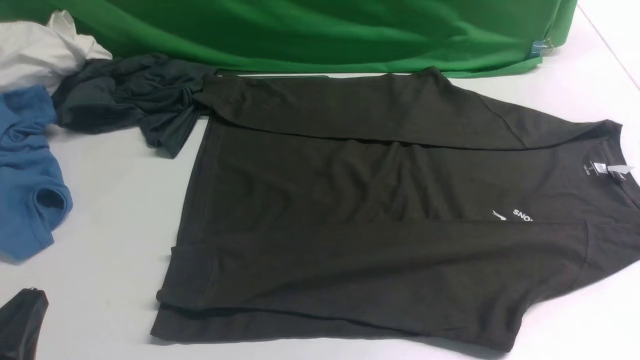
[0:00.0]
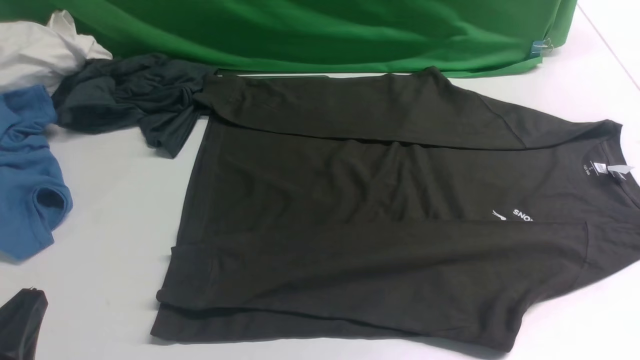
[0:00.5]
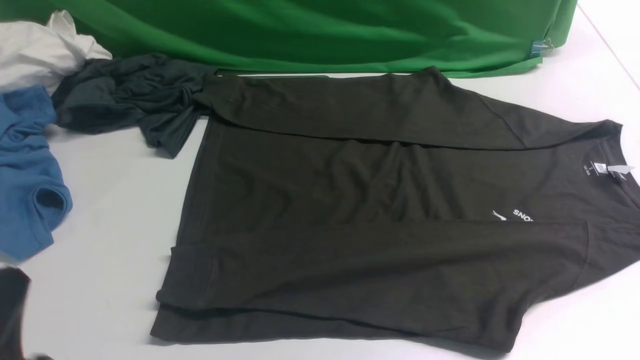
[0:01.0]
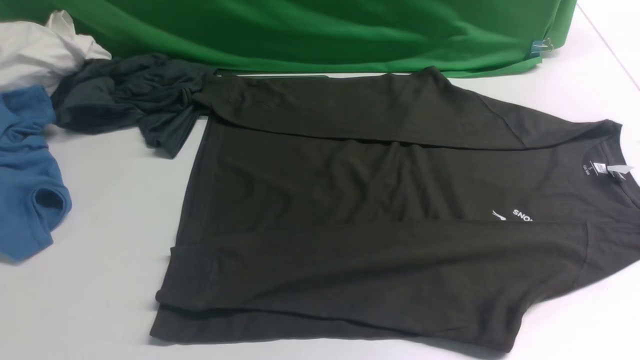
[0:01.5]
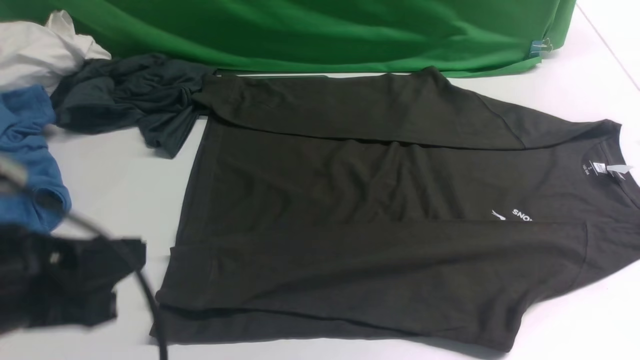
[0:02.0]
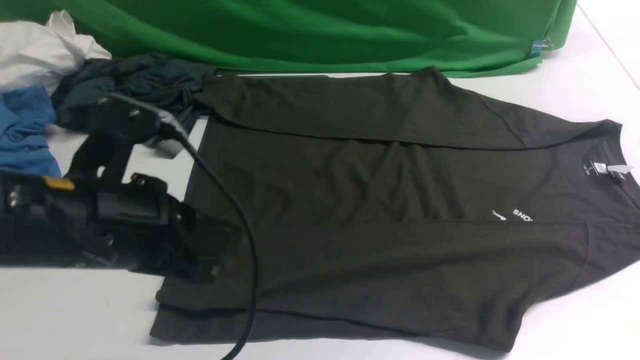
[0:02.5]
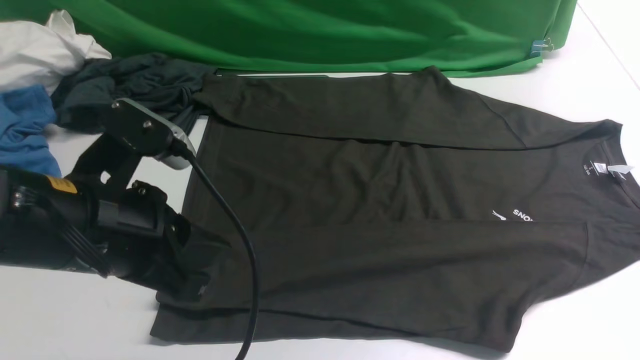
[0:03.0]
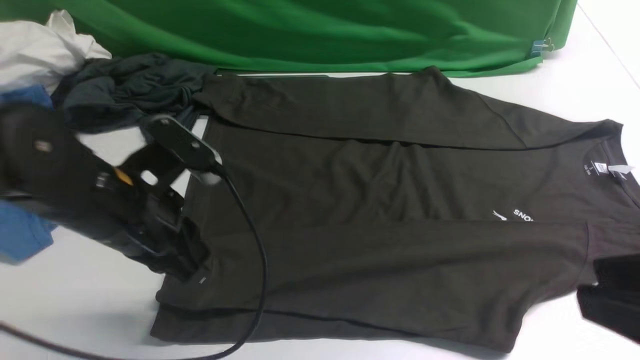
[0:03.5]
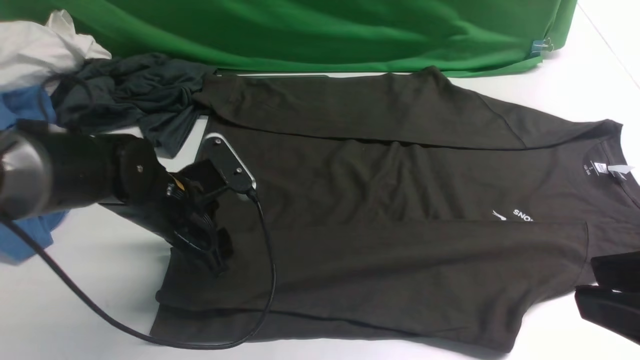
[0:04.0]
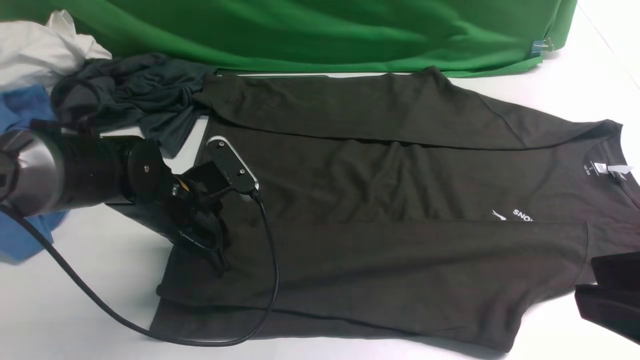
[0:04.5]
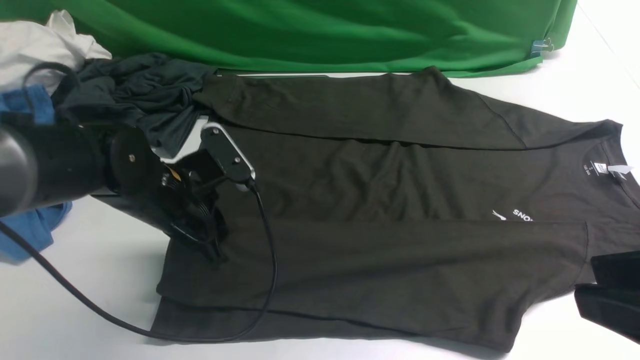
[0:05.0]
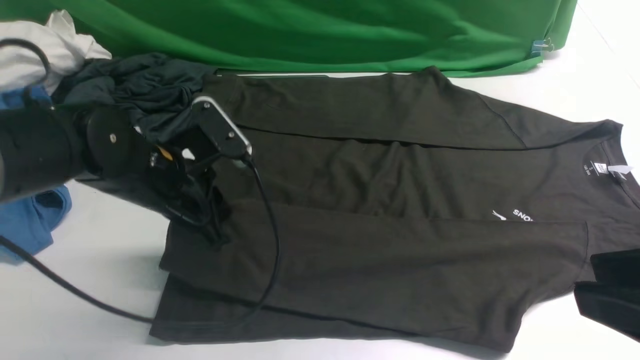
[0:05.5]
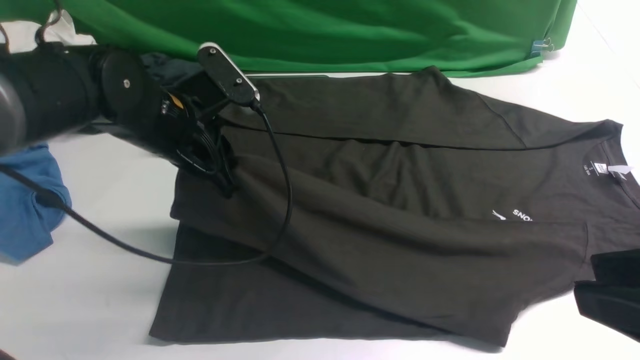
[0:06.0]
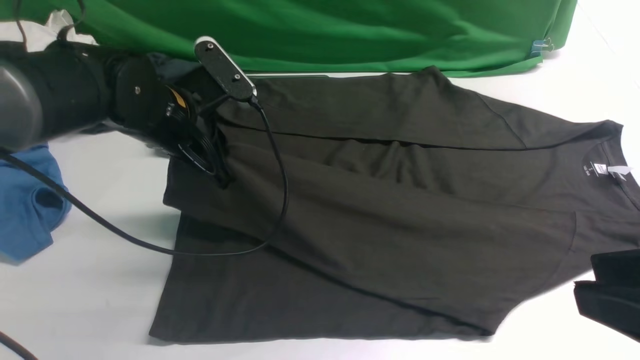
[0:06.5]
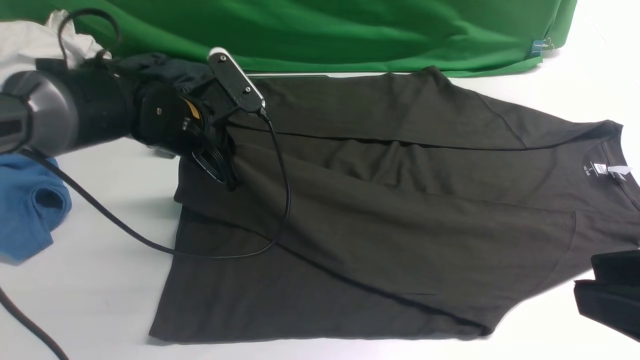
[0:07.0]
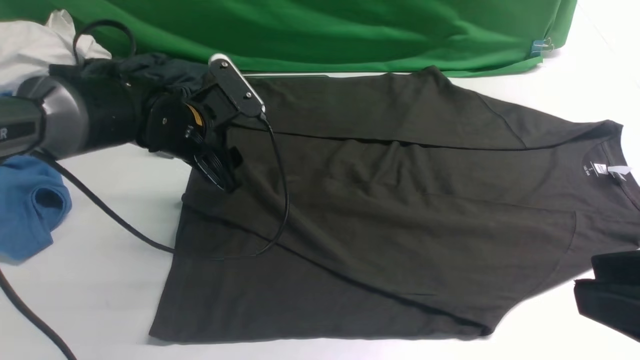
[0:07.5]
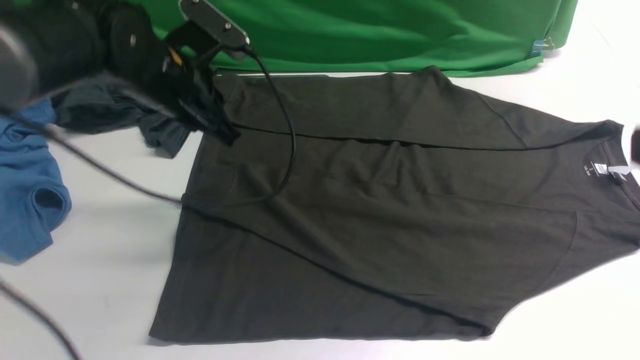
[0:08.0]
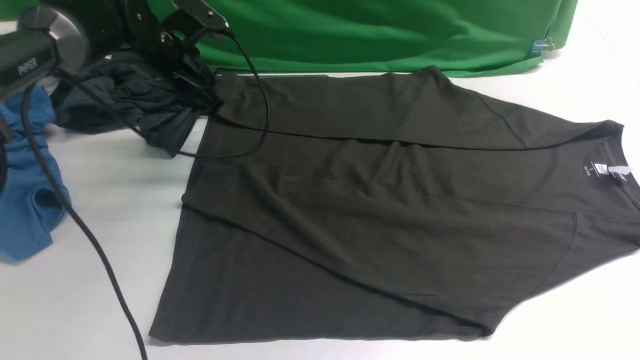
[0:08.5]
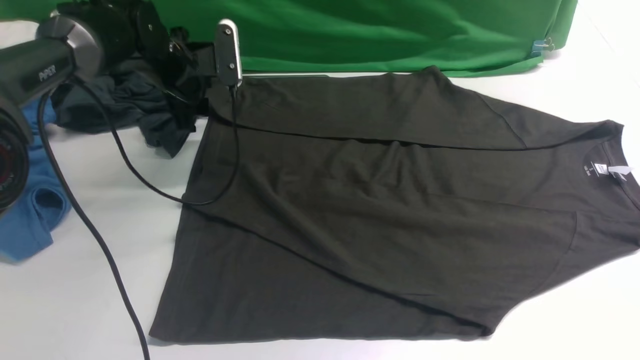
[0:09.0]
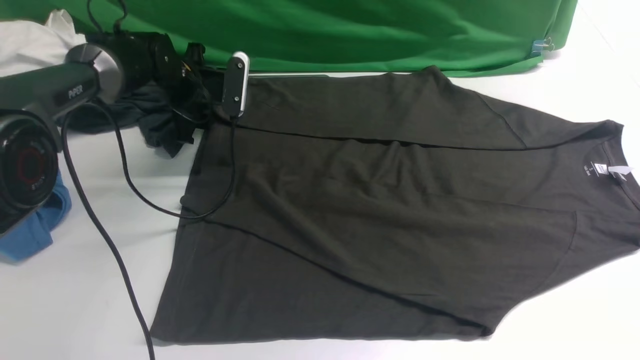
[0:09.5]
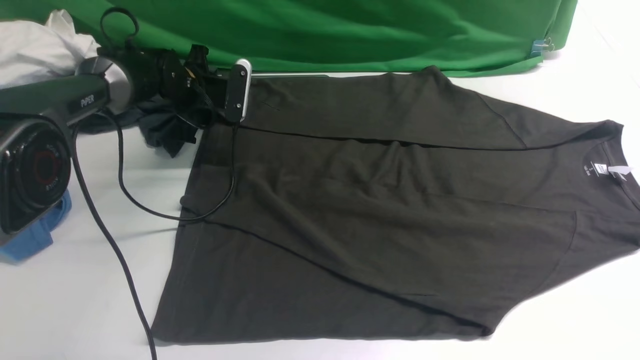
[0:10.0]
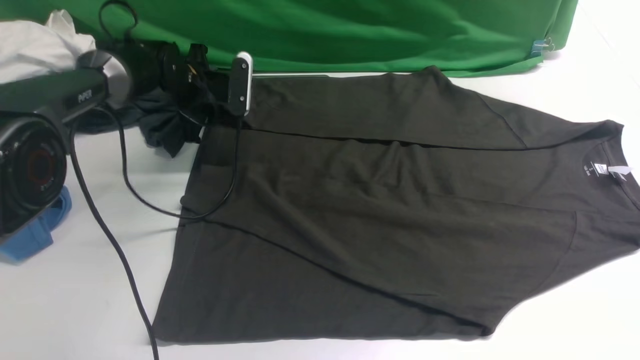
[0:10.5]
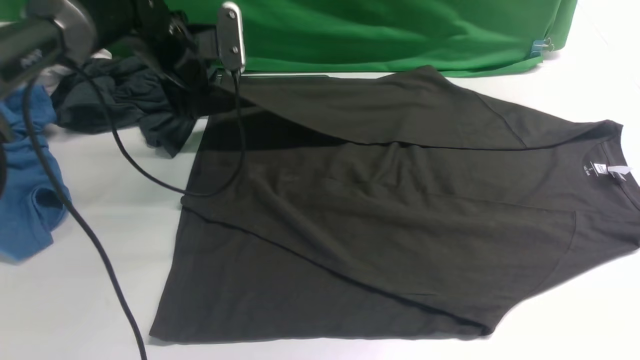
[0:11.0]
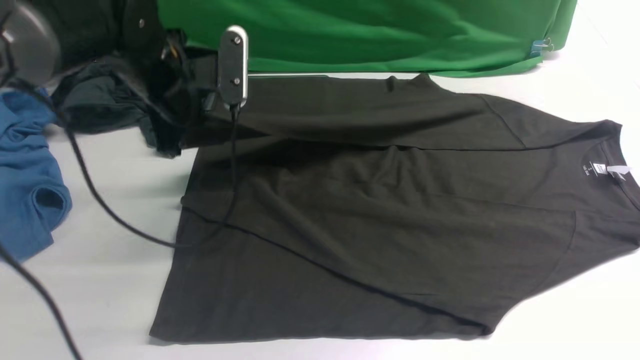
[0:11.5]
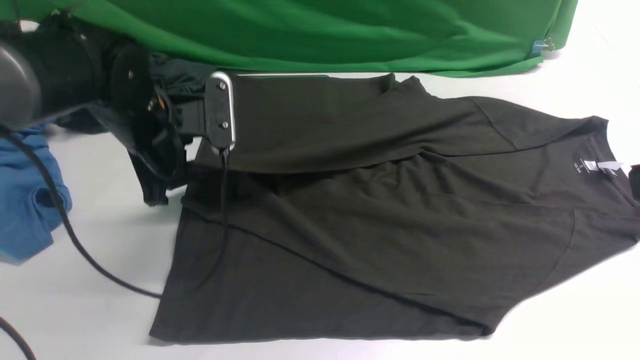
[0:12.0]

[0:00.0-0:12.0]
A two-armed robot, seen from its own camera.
Step, 0:00.0 to 0:05.0: use the left arm to clamp the cuff closest to it.
Step, 0:05.5 to 0:07.5: use the left arm to drag and place the cuff at the centered position on the left edge of the fabric.
Step, 0:08.0 to 0:10.5: use the left arm to clamp the cuff farthest from it.
0:00.0 to 0:02.0: The left gripper travels upward and forward by roughly 15 cm.
0:02.0 to 0:04.0: The right gripper heads upward and to the left, covering roughly 15 cm; the left gripper heads forward and downward, covering about 25 cm, and opens.
0:04.0 to 0:06.0: The left gripper travels upward by about 10 cm, and closes its fingers.
0:06.0 to 0:08.0: The left gripper heads forward, covering some 5 cm, and opens, then closes once more, while the right gripper goes approximately 5 cm upward.
0:08.0 to 0:10.0: The left gripper goes roughly 15 cm forward and downward, and opens its fingers.
0:10.0 to 0:12.0: The left gripper travels backward and upward by about 20 cm, and closes up.

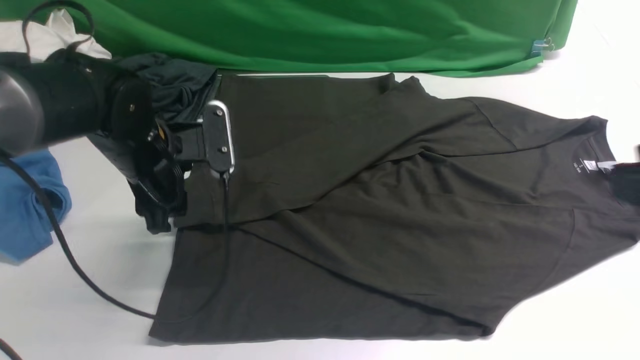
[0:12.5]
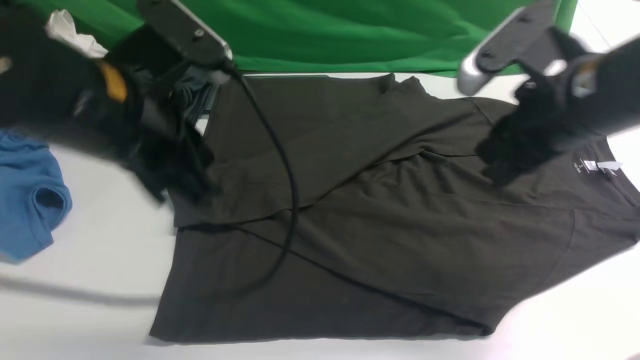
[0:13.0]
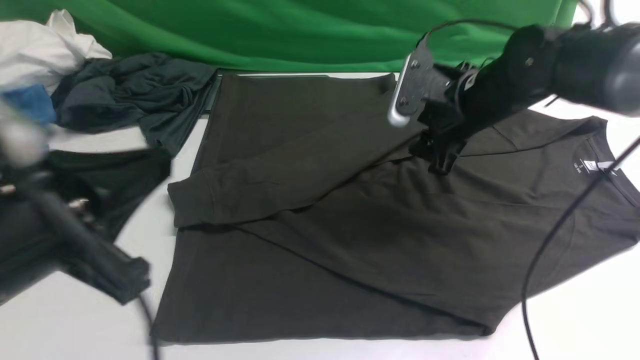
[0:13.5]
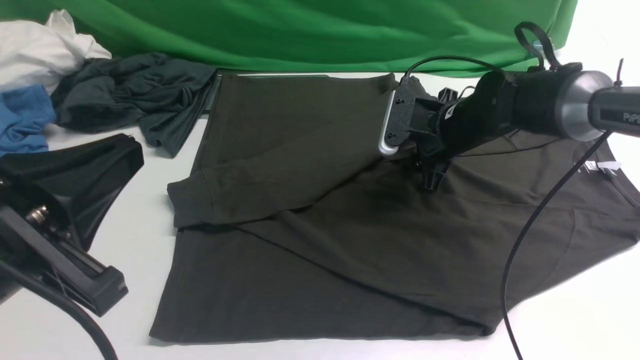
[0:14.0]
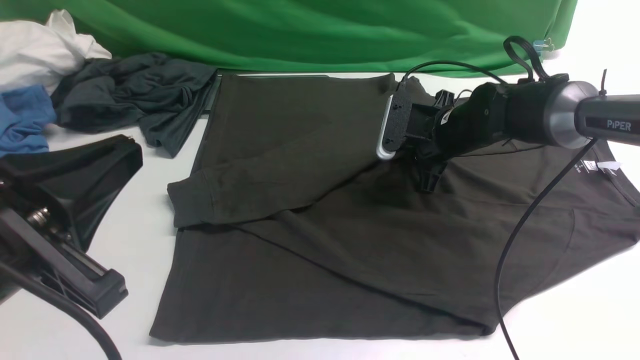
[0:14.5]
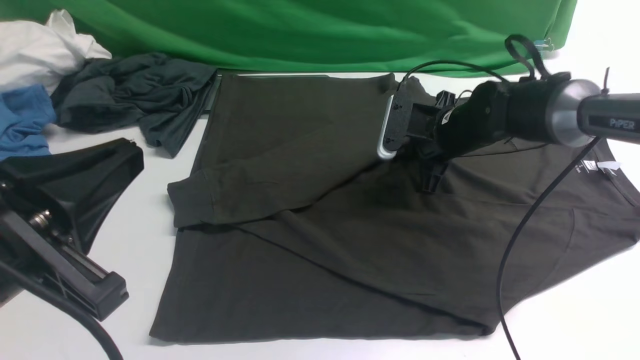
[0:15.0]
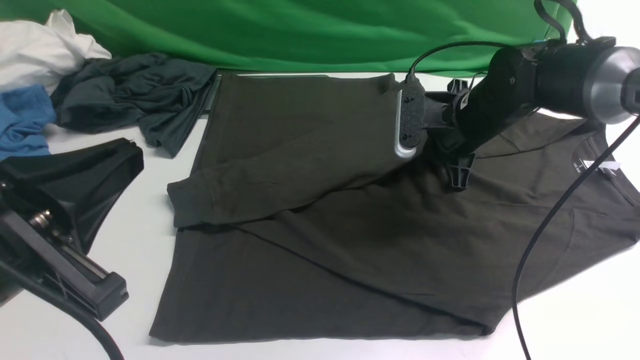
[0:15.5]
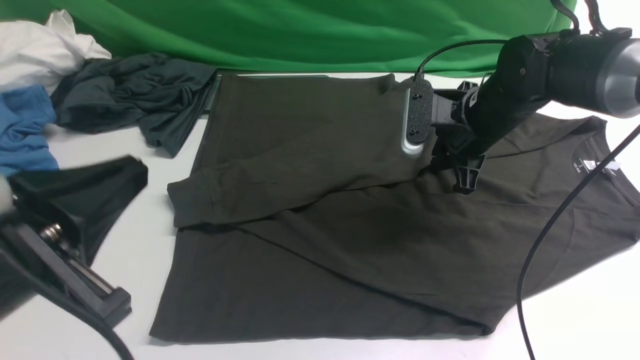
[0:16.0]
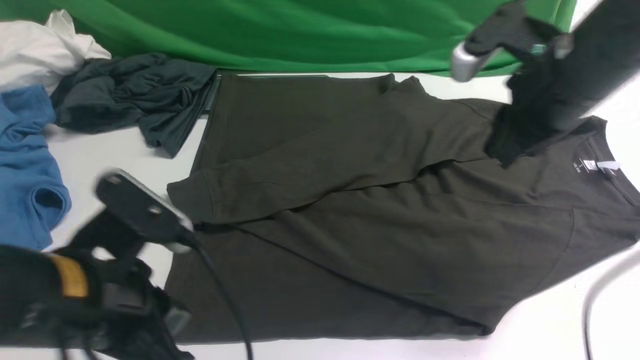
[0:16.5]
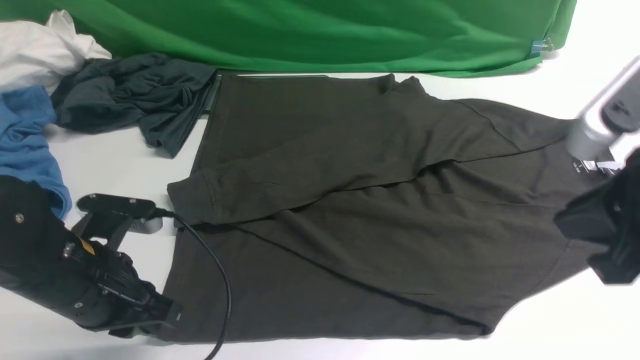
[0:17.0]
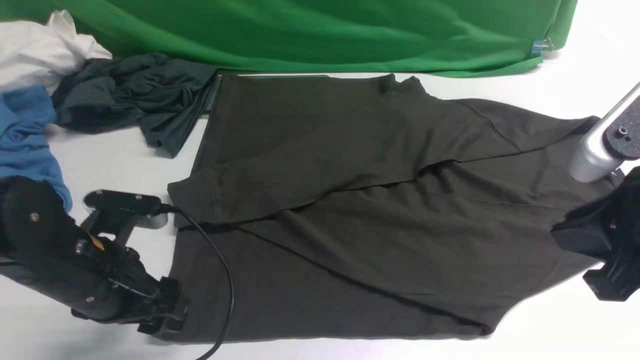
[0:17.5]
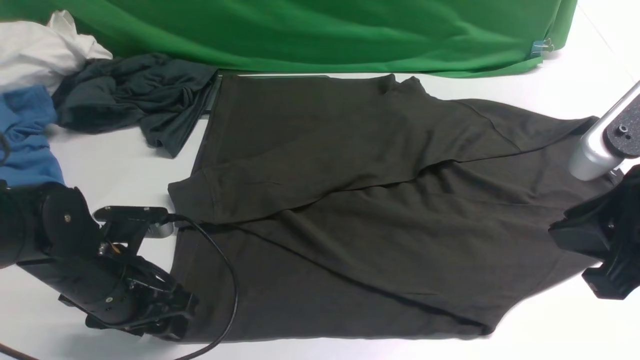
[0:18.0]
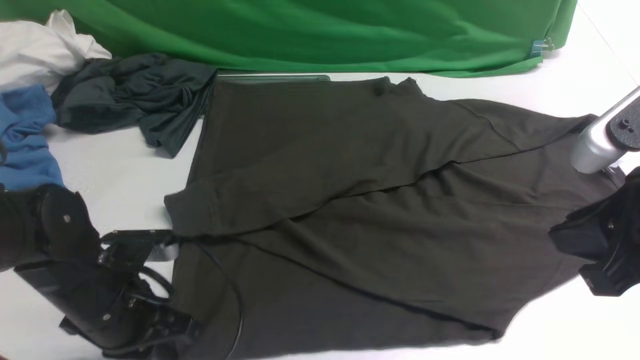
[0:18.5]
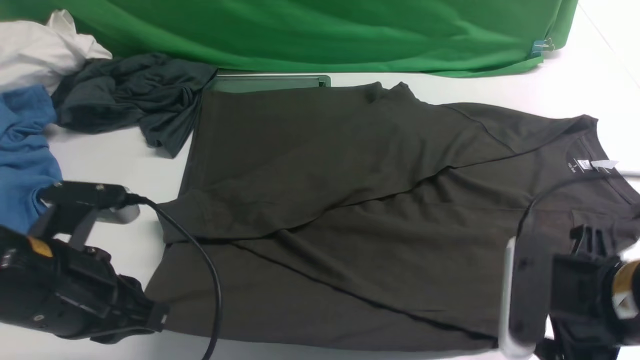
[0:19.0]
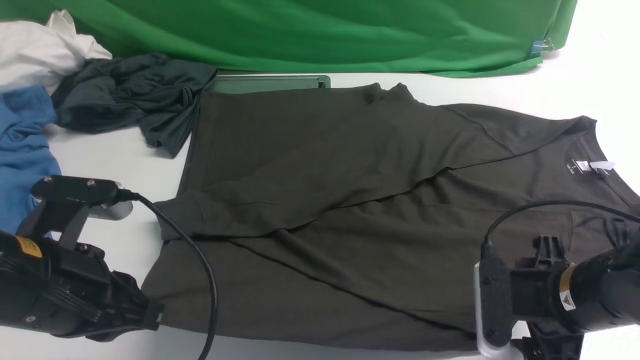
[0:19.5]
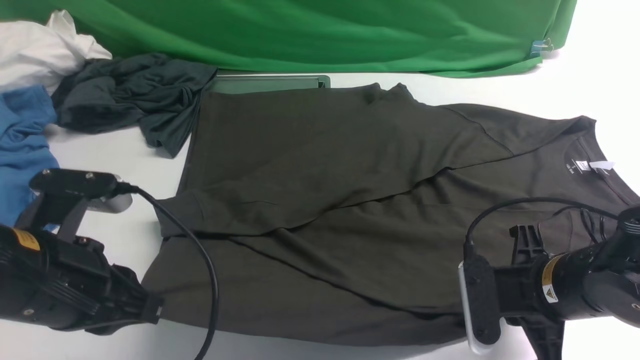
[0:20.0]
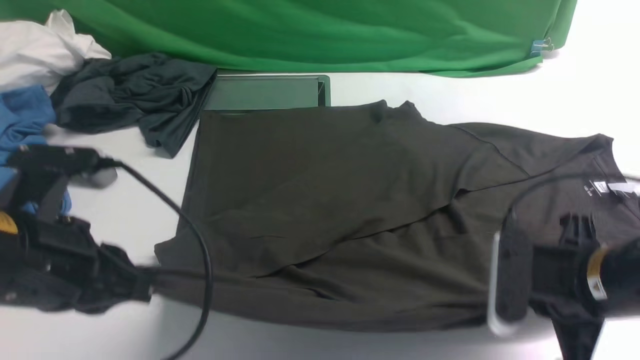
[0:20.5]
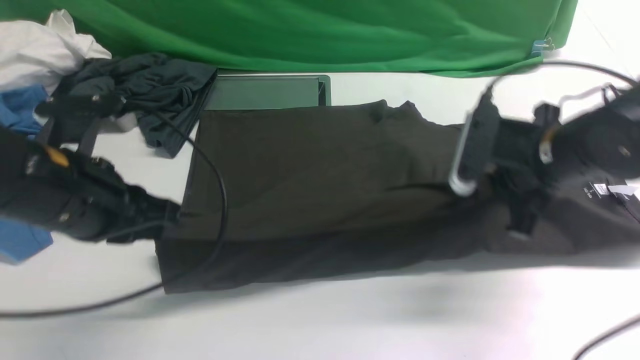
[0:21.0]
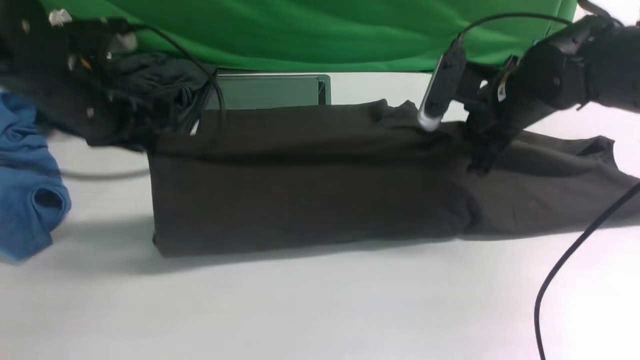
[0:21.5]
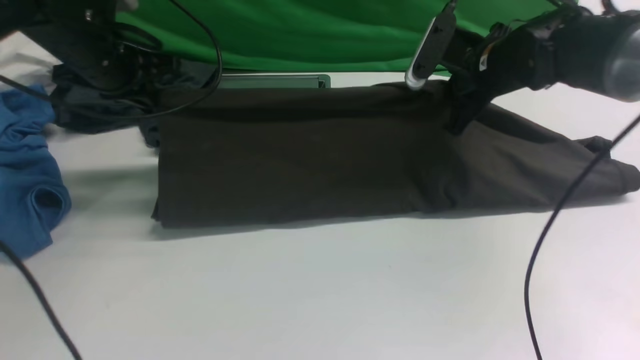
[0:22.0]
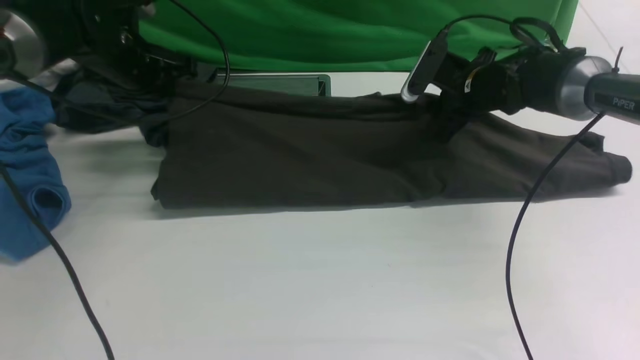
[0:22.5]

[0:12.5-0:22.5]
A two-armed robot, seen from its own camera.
Step, 0:13.0 to 0:20.0: use both arms simultaneously to clamp the lower edge of the clothing fabric.
0:12.5 to 0:14.5: The left gripper heads backward and upward, covering approximately 25 cm, and closes. Meanwhile the right gripper moves forward and downward, about 40 cm.
0:14.5 to 0:16.5: The left gripper moves downward, some 10 cm. Meanwhile the right gripper heads upward and backward, covering roughly 20 cm.
0:16.5 to 0:18.5: The right gripper heads backward, covering roughly 15 cm. Meanwhile the left gripper travels downward and forward by some 10 cm, and opens, then closes again.
0:18.5 to 0:20.5: The right gripper shifts about 10 cm downward, and opens, then closes again; the left gripper heads upward, covering roughly 10 cm.
0:20.5 to 0:22.5: Both grippers move forward, some 30 cm. The right gripper opens up.
